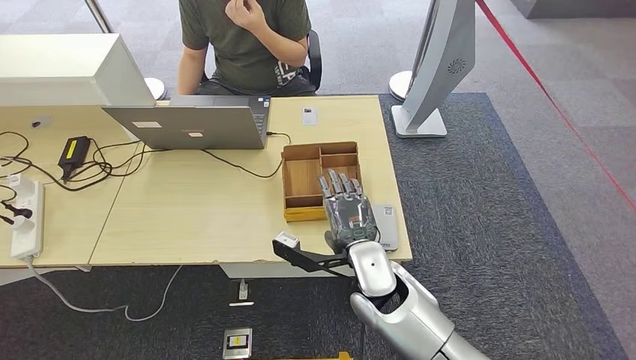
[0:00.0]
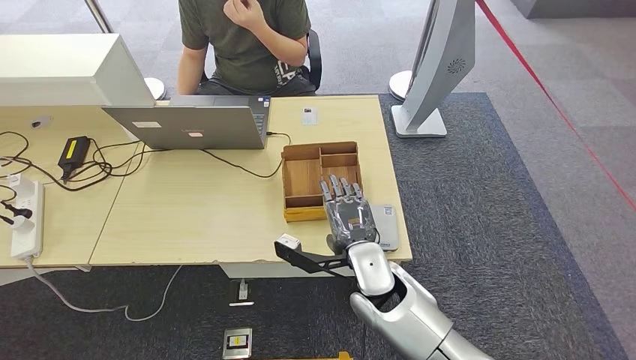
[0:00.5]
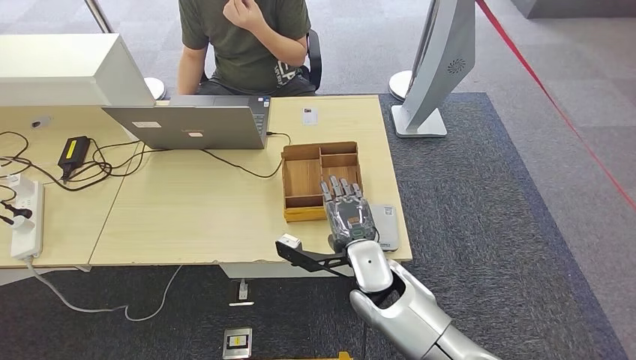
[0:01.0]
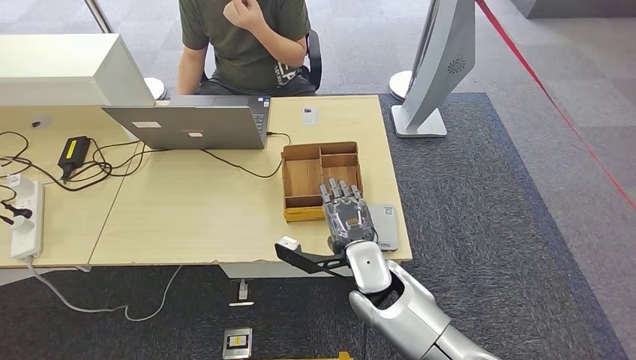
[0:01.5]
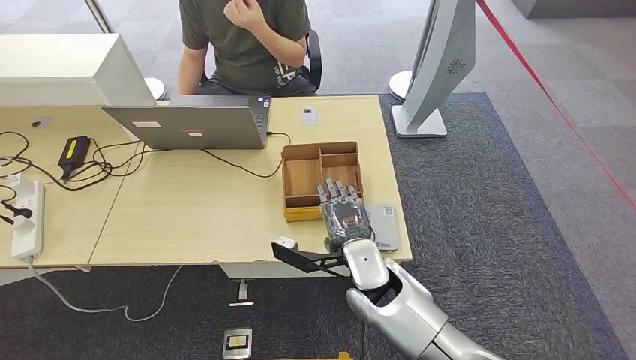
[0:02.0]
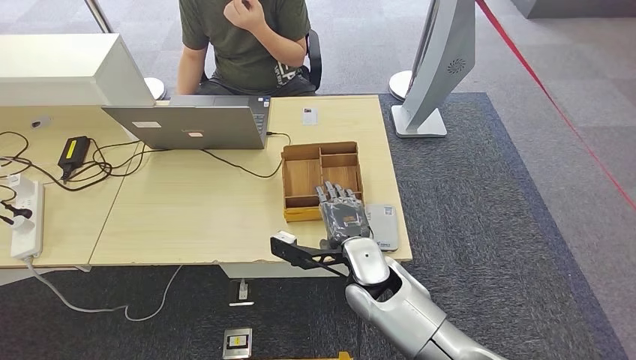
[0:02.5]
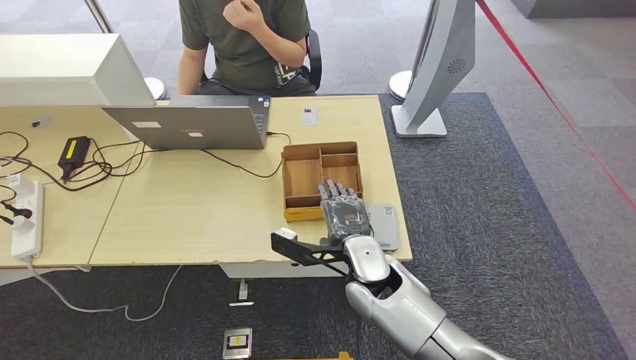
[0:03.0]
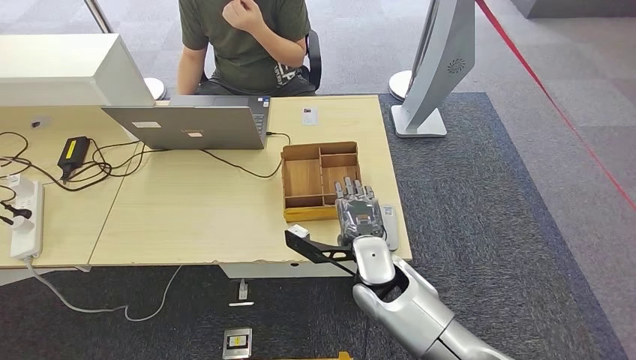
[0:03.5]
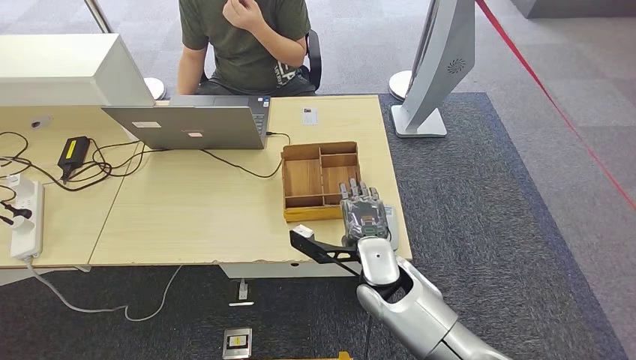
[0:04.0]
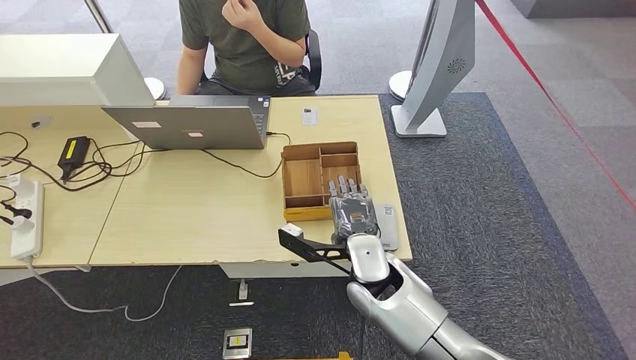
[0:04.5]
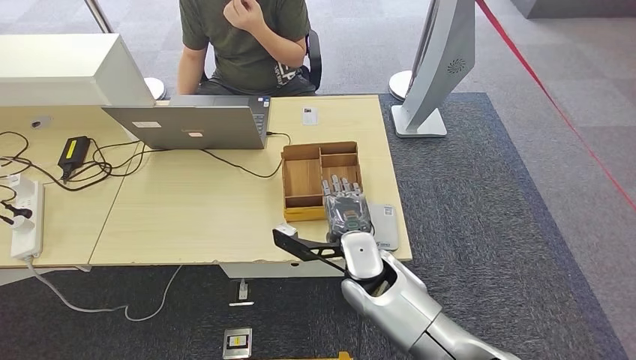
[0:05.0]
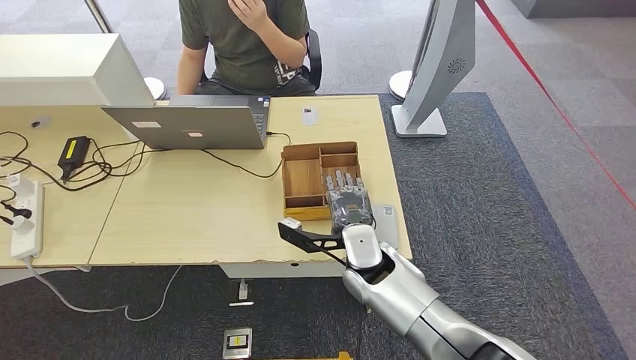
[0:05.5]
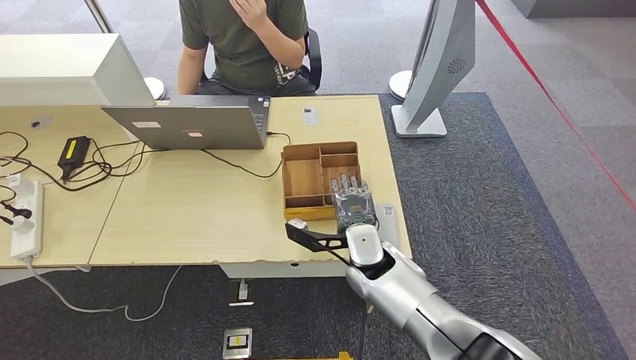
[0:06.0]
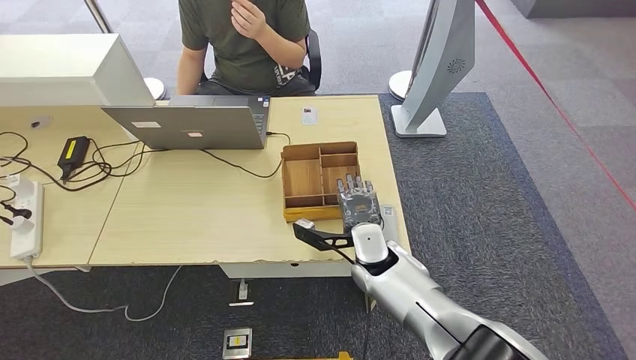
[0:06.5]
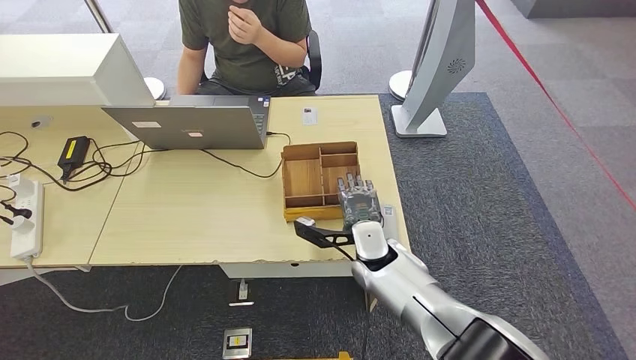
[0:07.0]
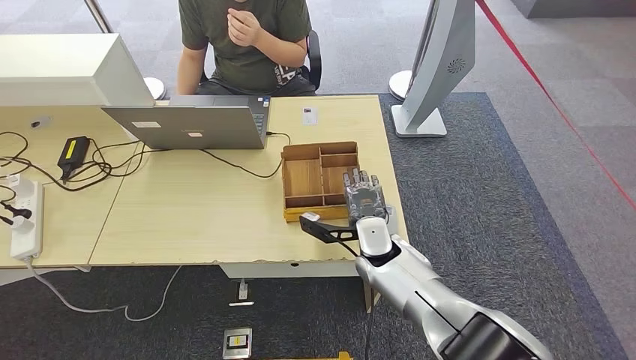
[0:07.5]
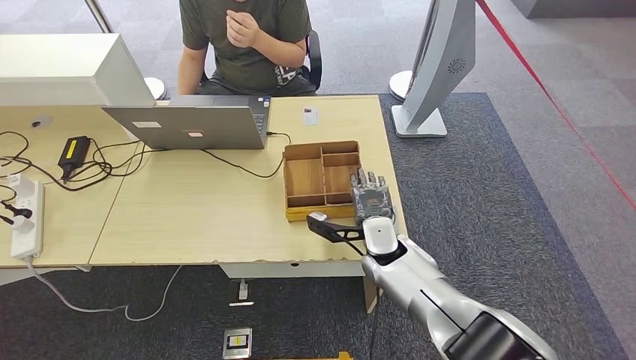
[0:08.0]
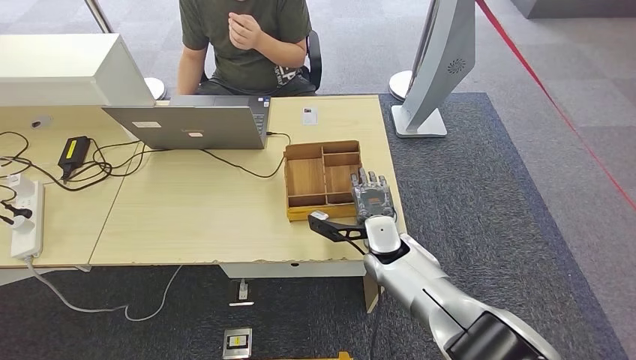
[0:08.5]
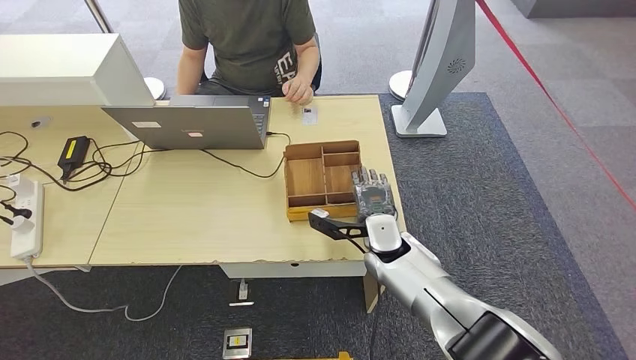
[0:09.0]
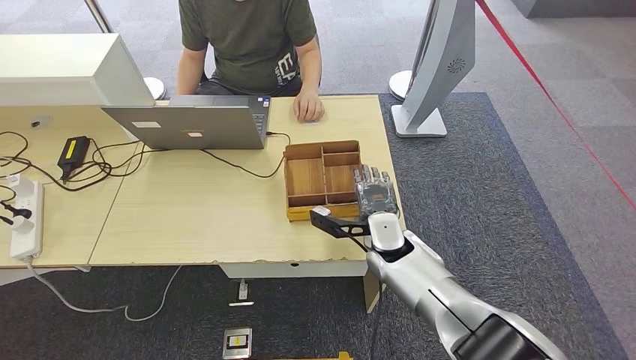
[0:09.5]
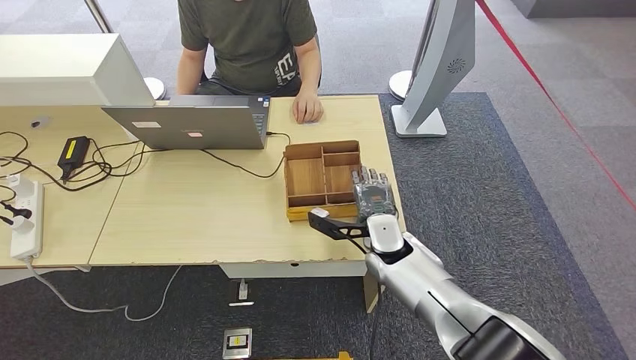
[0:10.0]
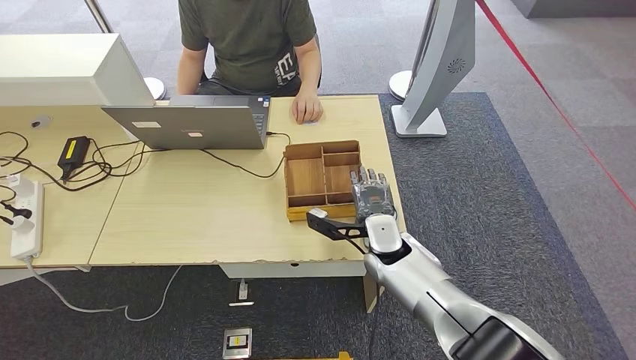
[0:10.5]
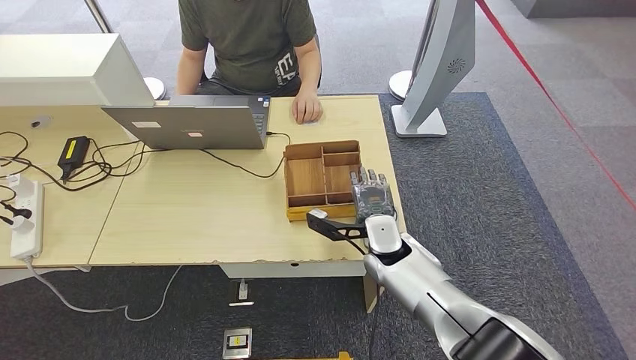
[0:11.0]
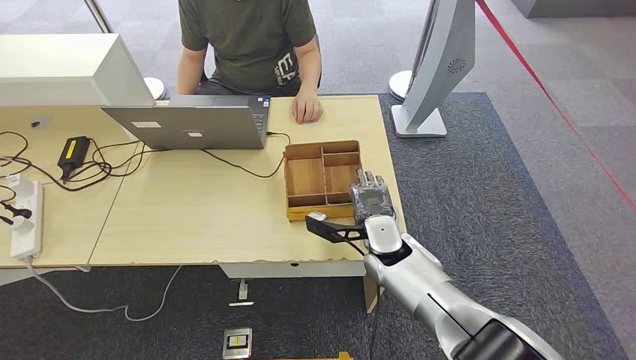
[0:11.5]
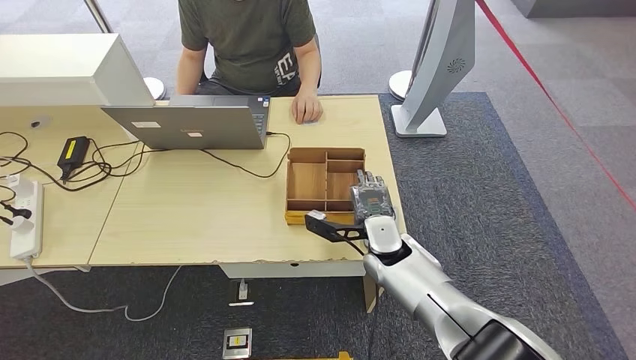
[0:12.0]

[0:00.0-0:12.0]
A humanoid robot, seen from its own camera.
0:00.0 to 0:04.0: There are only small adjustments of the hands.
0:04.0 to 0:06.0: The hands make only small movements.
0:06.0 to 0:08.0: The right hand changes place by some 5 cm.
0:08.0 to 0:10.0: Both hands stay about where they are.
0:10.0 to 0:12.0: Both hands stay about where they are.

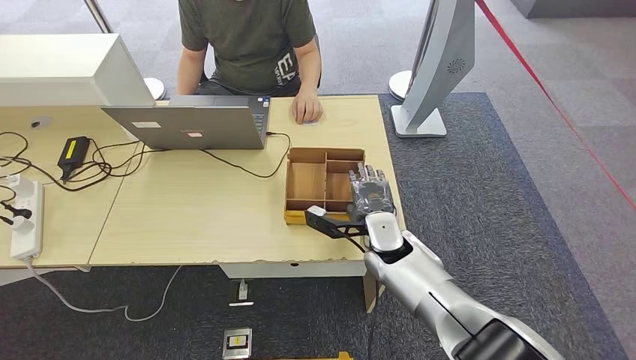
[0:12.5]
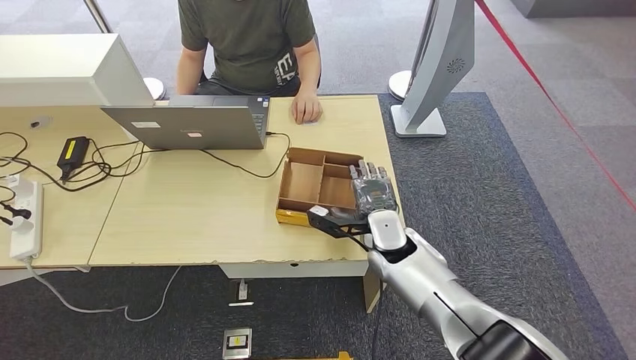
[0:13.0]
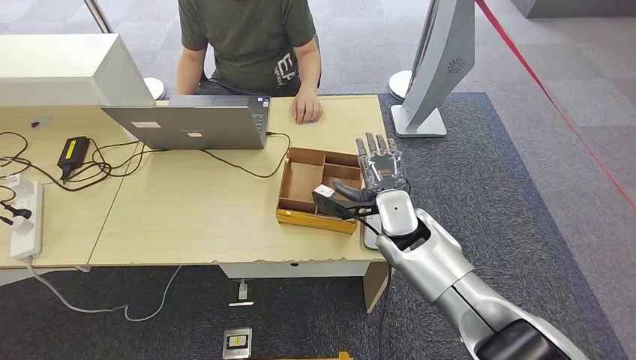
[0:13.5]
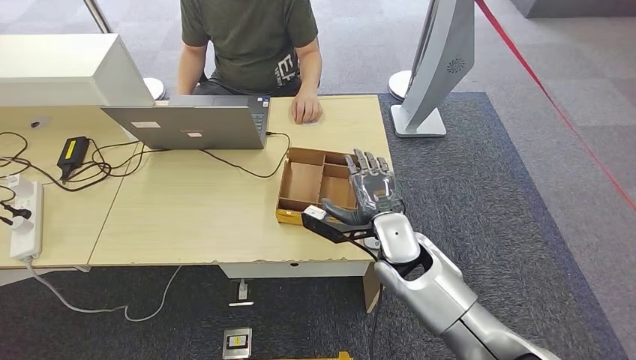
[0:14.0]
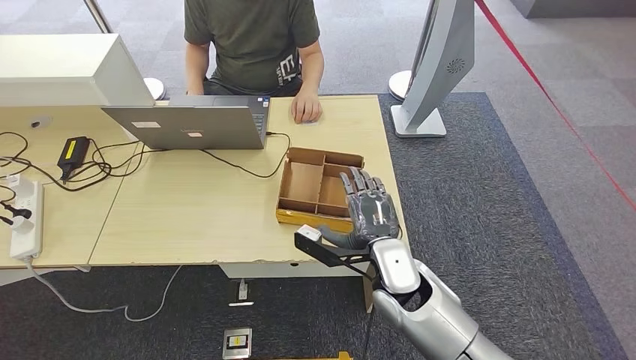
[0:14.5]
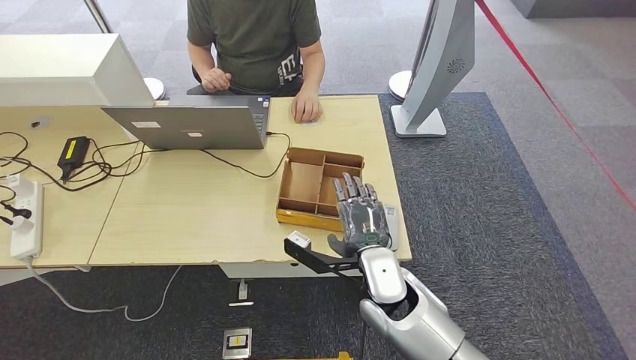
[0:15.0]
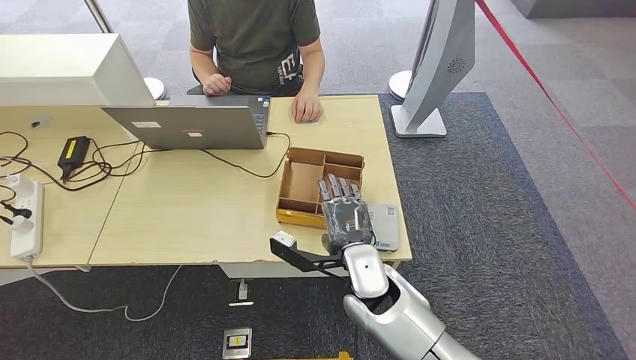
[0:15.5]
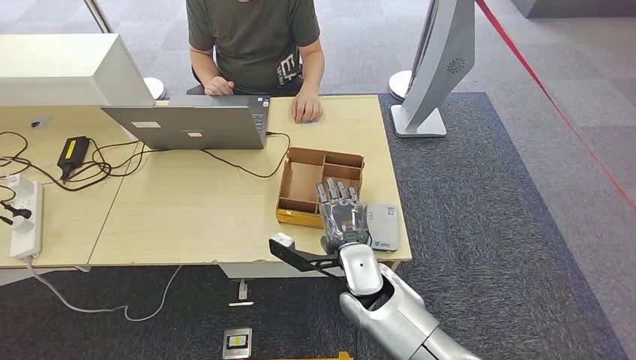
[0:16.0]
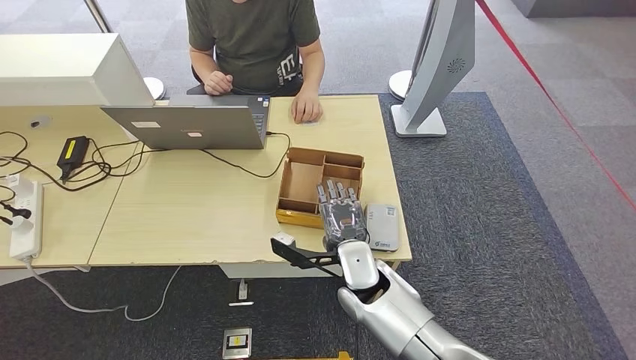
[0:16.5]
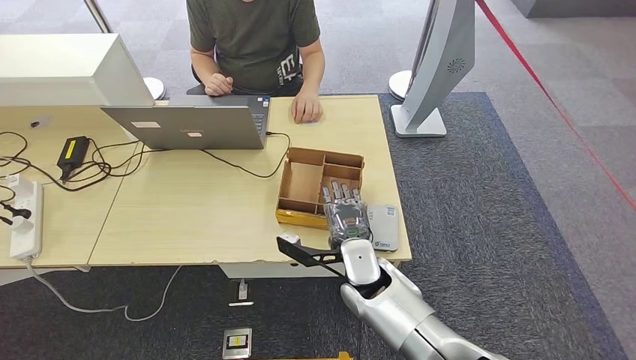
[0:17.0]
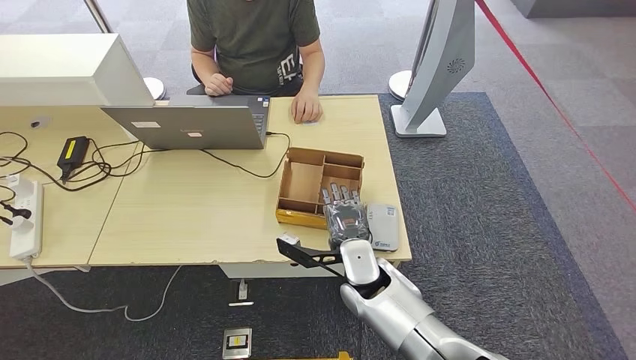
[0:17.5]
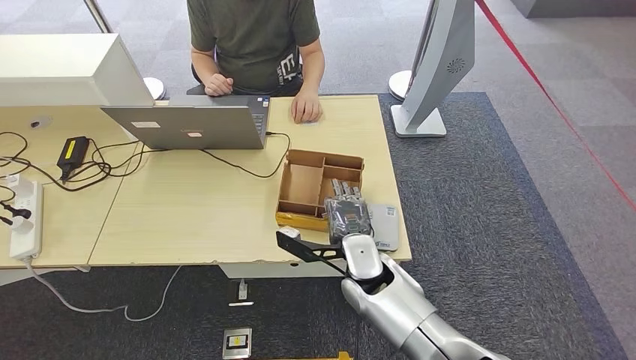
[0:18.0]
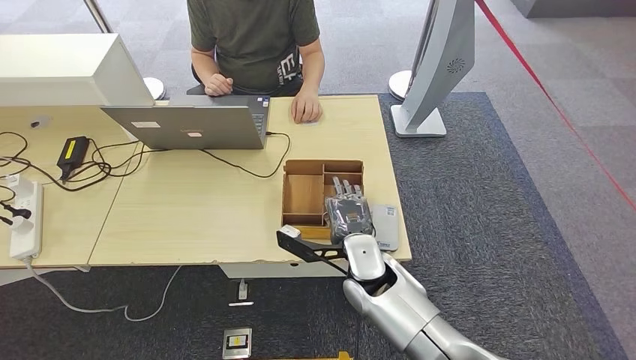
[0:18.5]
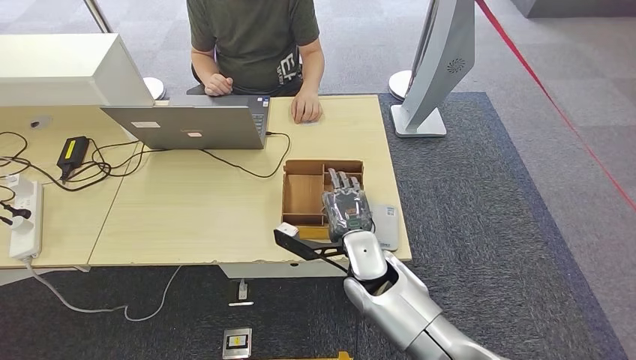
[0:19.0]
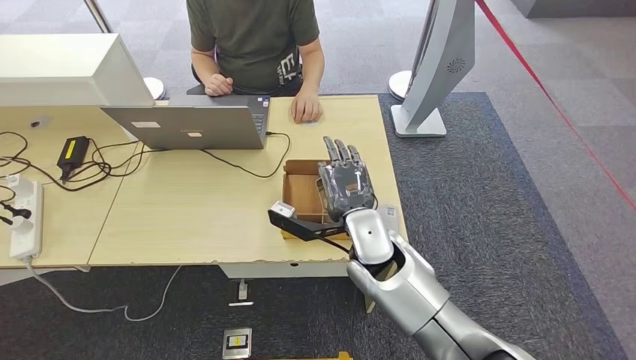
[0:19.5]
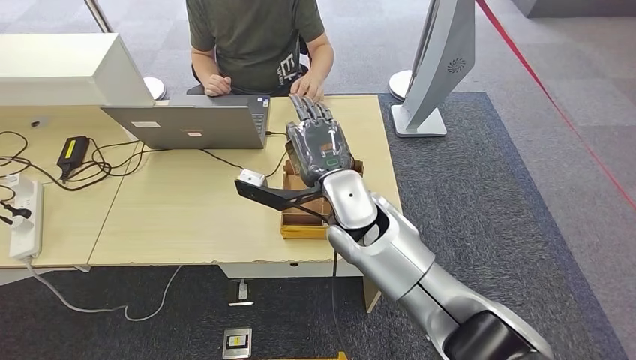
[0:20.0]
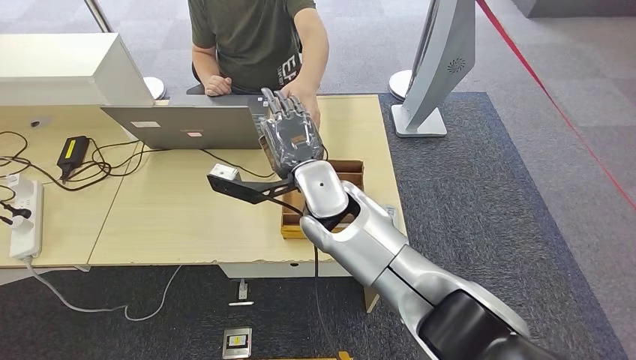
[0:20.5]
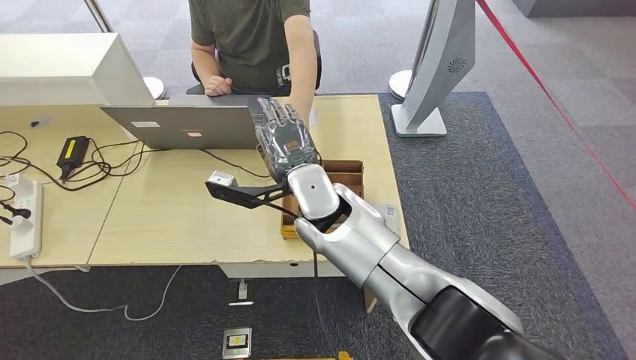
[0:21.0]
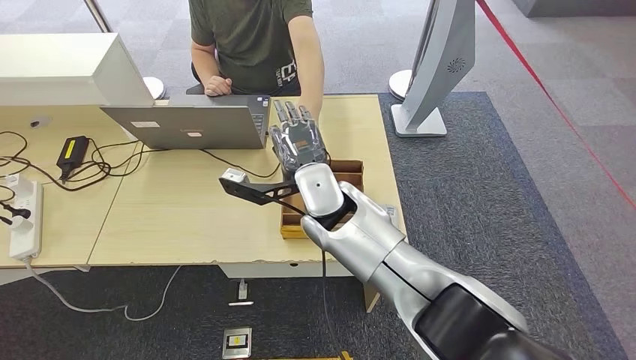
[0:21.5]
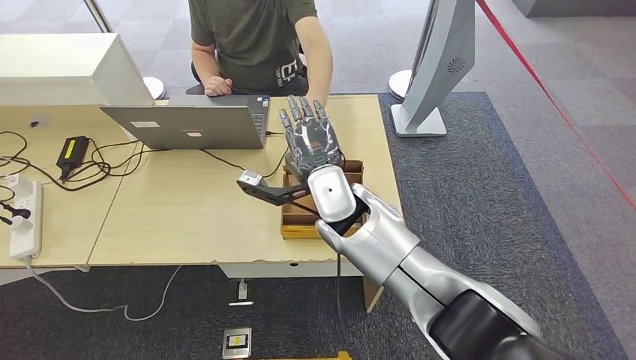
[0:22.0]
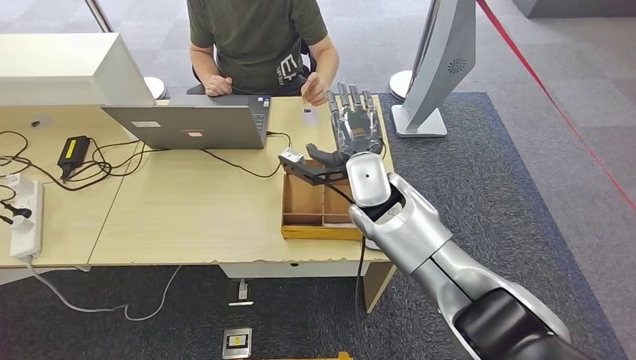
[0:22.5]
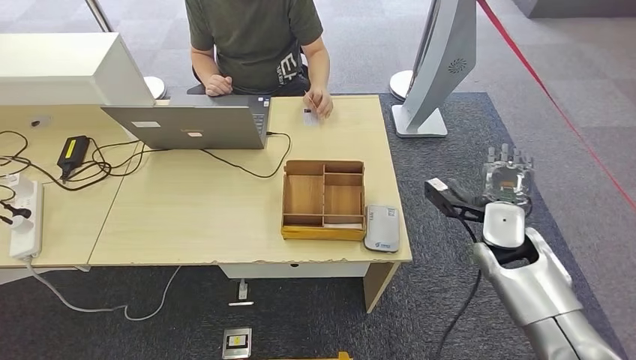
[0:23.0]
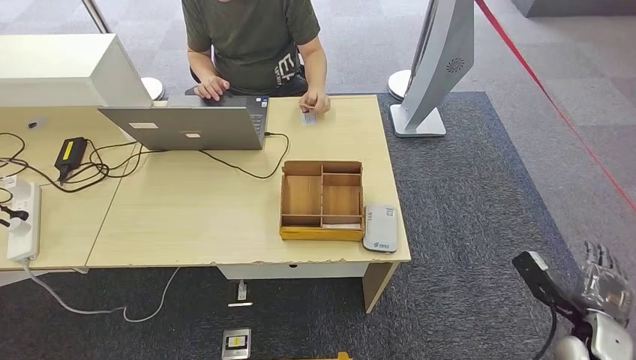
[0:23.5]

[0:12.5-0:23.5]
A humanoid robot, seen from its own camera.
Step, 0:12.5 to 0:18.5: Pick up the room key from the key card box.
0:12.5 to 0:14.5: The right hand is displaced backward by some 10 cm.
0:14.5 to 0:16.0: The right hand moves to the left, about 5 cm.
0:16.0 to 0:18.0: The hands move only a little.
0:18.0 to 0:20.0: The right hand travels upward by some 15 cm.
0:20.0 to 0:21.5: The hands stay close to where they were, moving slightly.
0:21.5 to 0:23.5: The right hand moves to the right and backward, approximately 50 cm.
